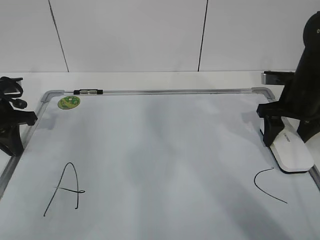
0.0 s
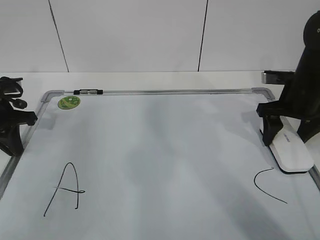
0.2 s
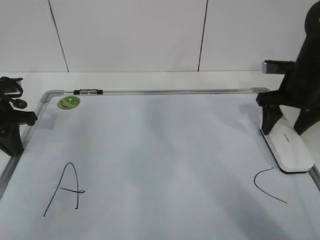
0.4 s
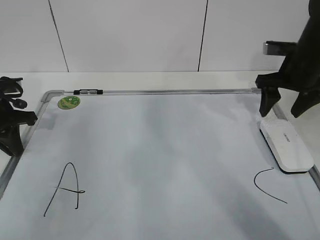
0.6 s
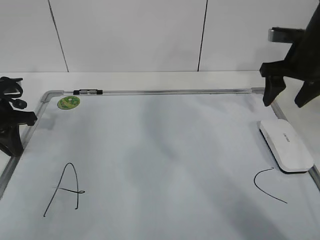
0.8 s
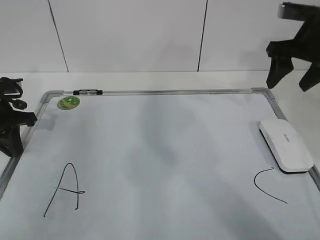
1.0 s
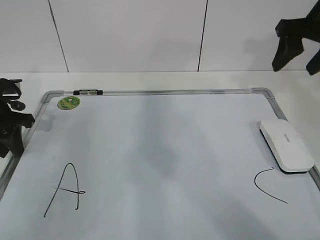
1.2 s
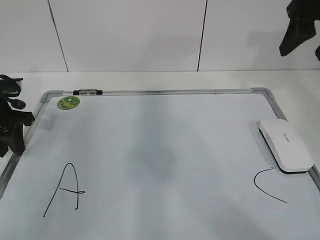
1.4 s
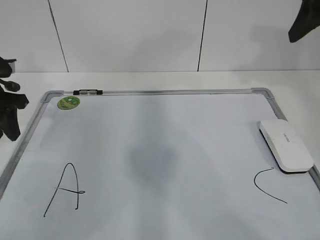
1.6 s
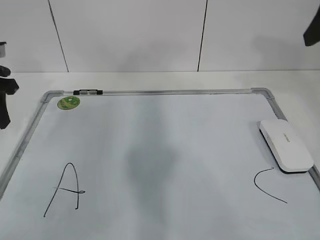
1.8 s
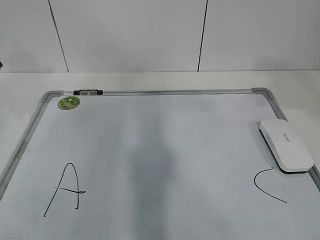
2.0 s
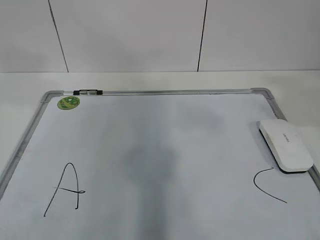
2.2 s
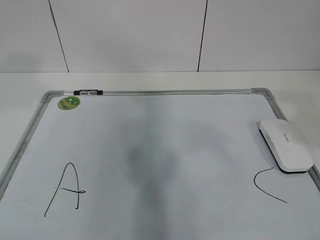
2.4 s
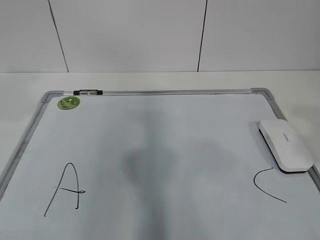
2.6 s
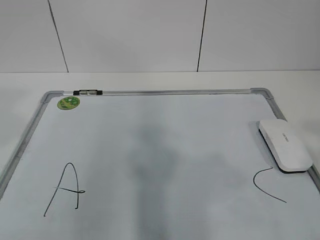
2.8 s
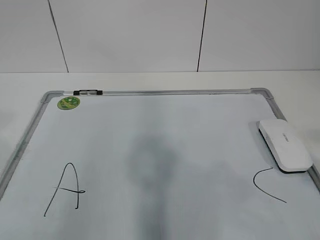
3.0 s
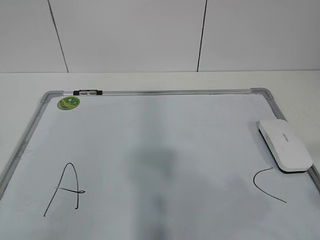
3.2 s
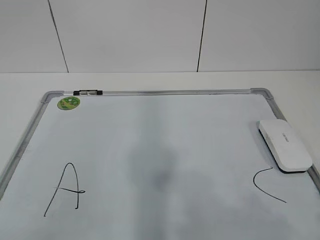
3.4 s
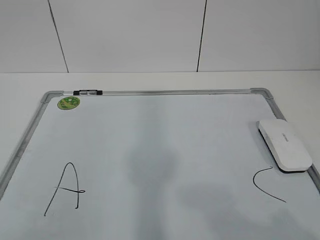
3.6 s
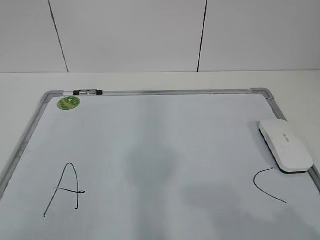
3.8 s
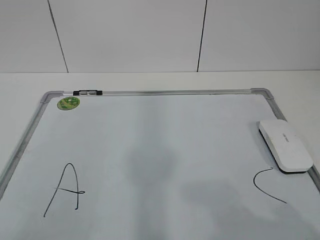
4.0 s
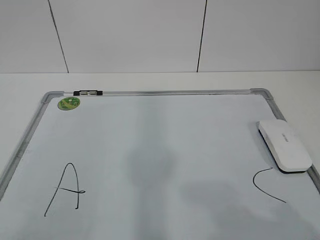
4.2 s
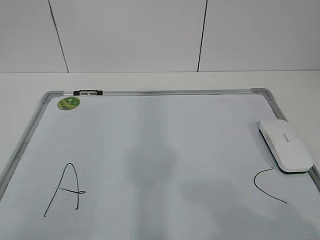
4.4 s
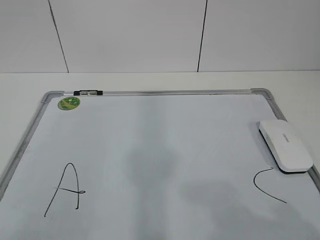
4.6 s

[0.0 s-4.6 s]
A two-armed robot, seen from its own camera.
Task of the whole recording: pick up the eraser on the blackboard and erase the letter "B".
0.0 to 1.6 s: The right gripper moves upward, approximately 20 cm, while the left gripper opens up.
1.6 to 3.0 s: The left gripper travels backward and upward by roughly 35 cm; the right gripper moves backward, roughly 35 cm.
3.0 to 4.6 s: The right gripper heads downward, covering some 10 cm; the left gripper heads backward and downward, covering about 10 cm.

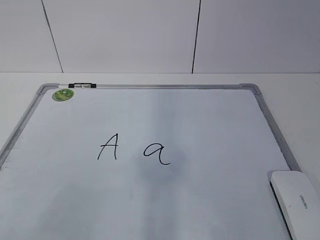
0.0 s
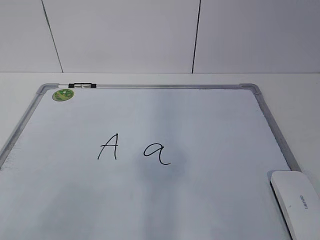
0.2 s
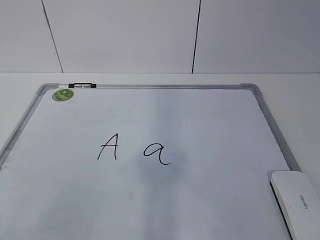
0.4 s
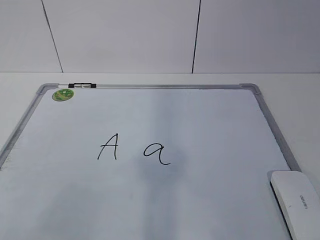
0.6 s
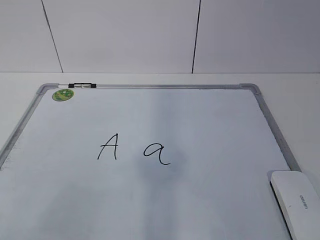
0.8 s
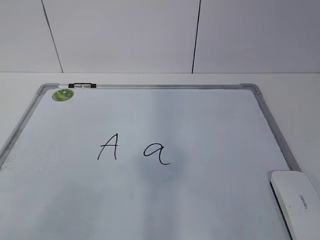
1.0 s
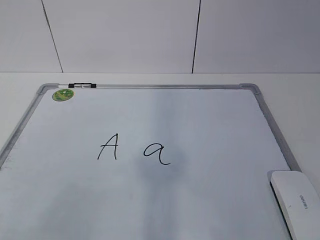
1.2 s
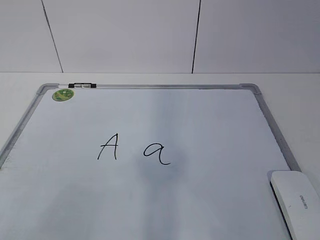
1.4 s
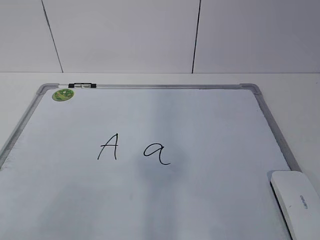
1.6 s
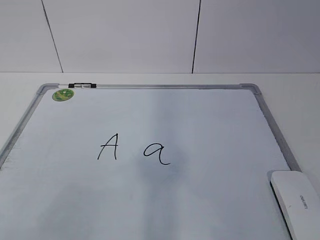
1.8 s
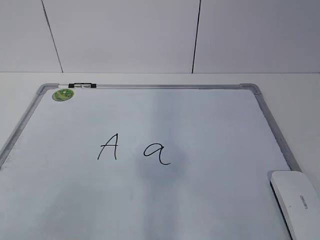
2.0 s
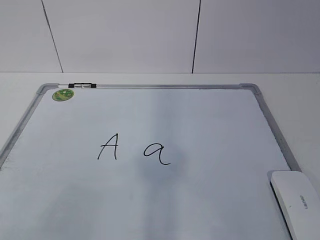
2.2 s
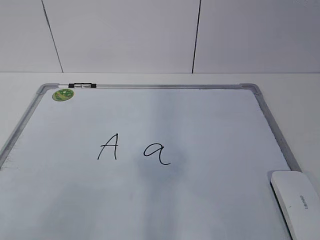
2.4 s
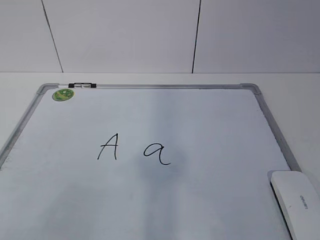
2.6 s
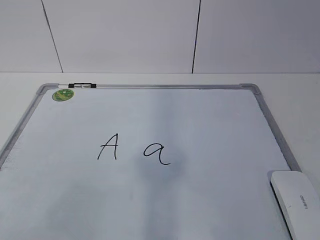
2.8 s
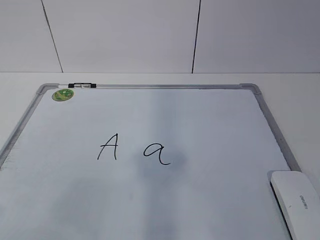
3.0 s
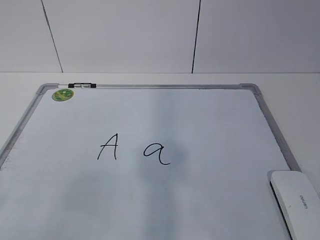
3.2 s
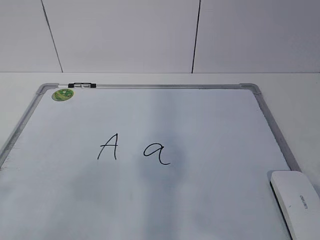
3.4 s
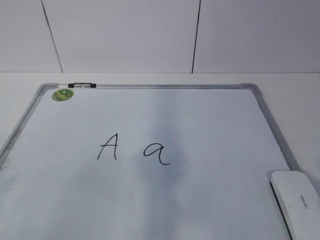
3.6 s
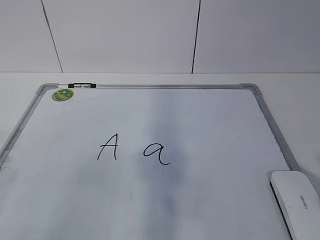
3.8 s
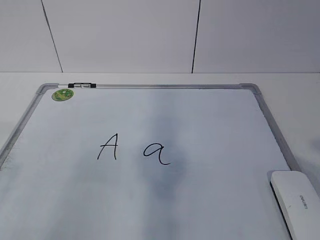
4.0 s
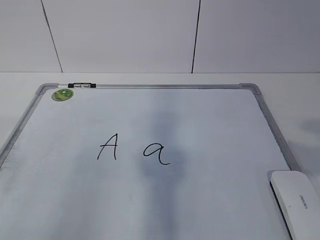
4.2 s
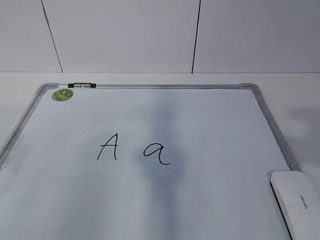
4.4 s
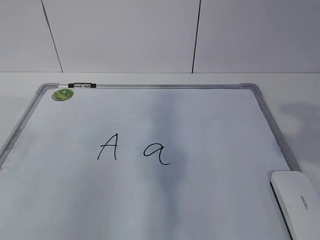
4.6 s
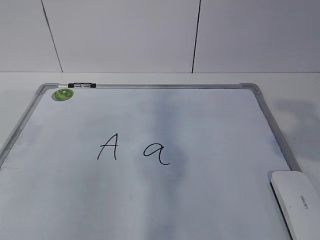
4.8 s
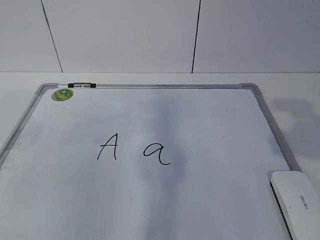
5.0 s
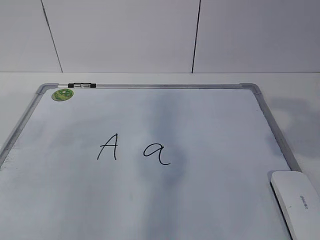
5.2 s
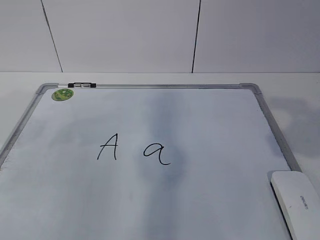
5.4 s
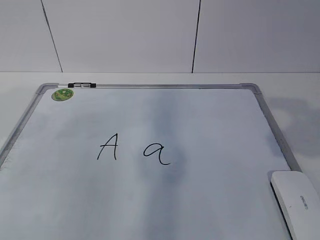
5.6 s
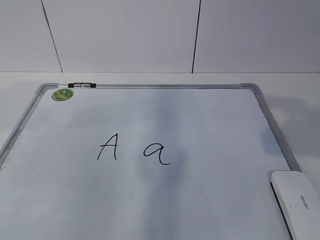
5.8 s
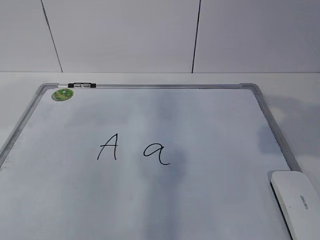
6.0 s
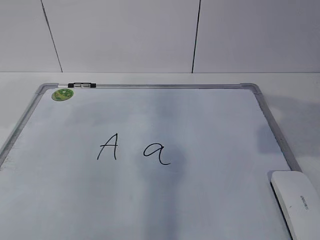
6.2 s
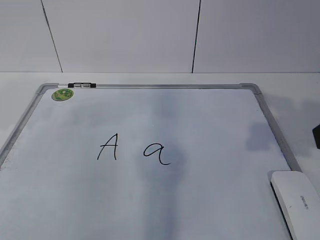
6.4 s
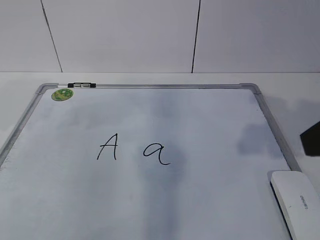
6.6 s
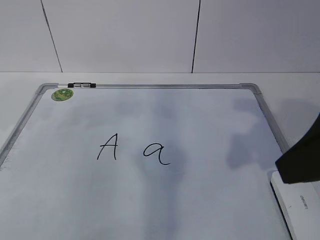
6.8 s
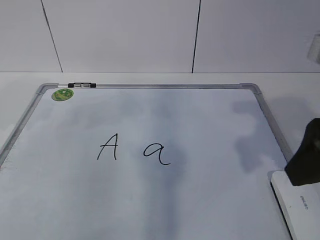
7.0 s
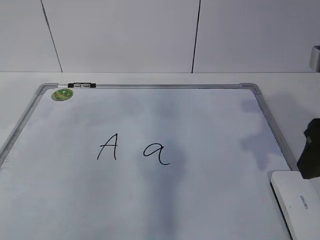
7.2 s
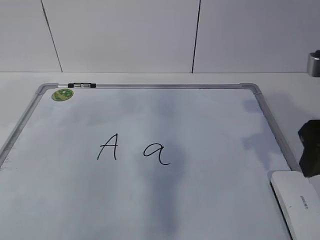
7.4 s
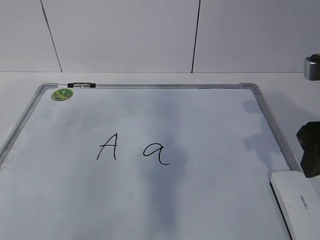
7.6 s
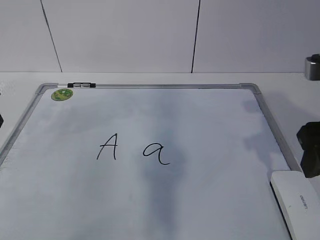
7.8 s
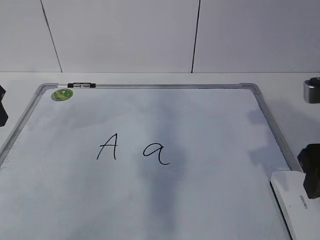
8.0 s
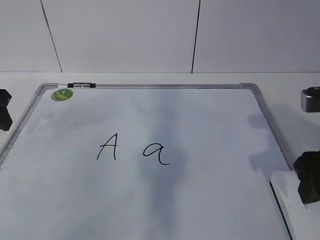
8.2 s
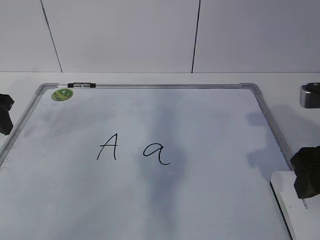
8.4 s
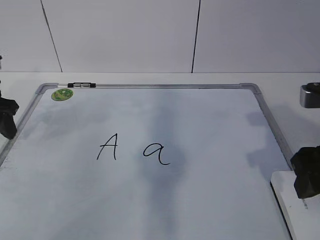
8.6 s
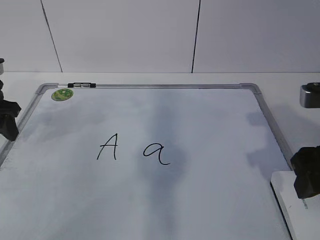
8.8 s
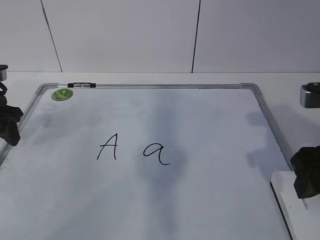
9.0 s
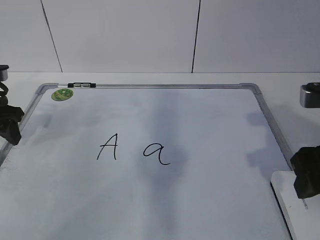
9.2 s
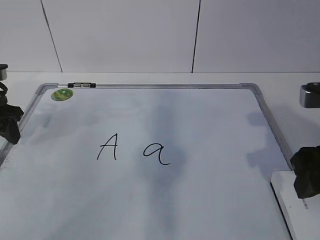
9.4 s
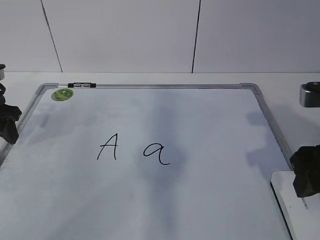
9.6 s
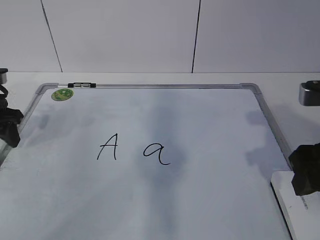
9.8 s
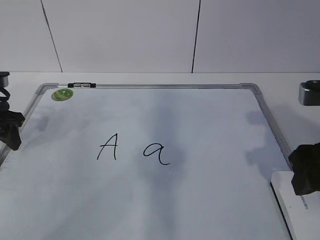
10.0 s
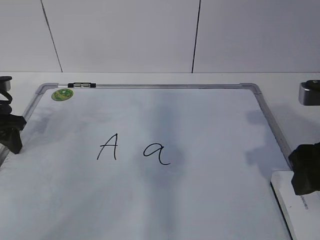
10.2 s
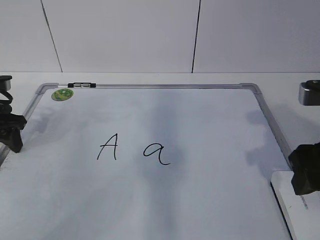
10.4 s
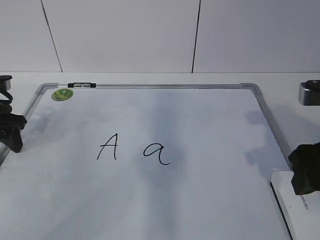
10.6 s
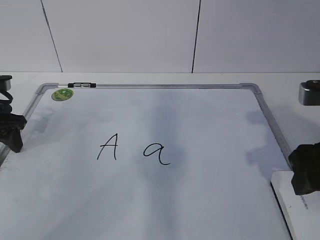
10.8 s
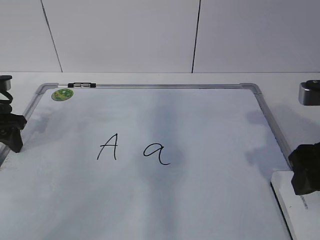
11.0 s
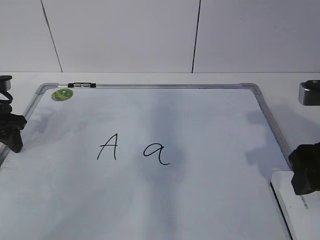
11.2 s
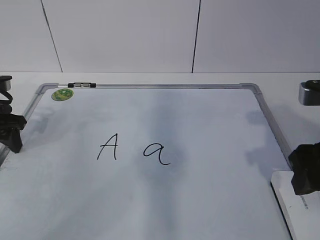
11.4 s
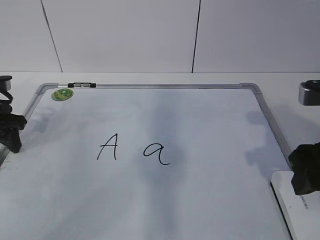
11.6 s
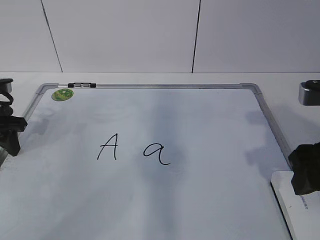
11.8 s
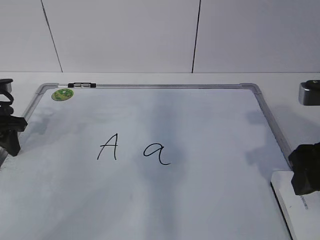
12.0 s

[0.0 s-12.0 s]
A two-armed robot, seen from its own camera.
Task of the whole recording: pick up the eraser on the blackboard and erase the letter "a".
Step, 0.0 to 10.4 s: Hold the drawing board steady with your left hand.
6.0 to 7.6 s: The right gripper goes approximately 10 cm forward and downward.
7.6 to 9.0 s: The left gripper travels downward and forward by some 10 cm.
9.0 to 10.4 s: There are only small adjustments of the grippers.
10.4 to 12.0 s: The two grippers keep their place.

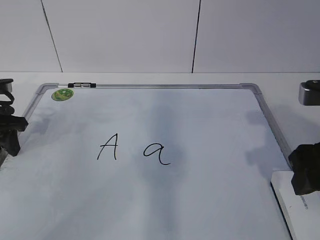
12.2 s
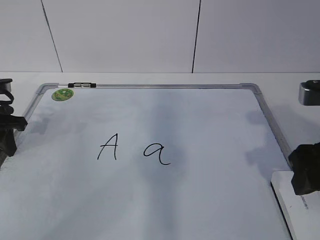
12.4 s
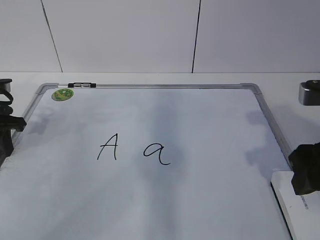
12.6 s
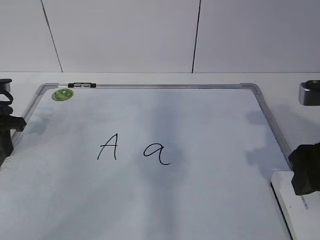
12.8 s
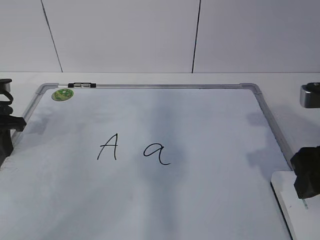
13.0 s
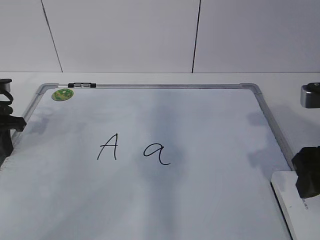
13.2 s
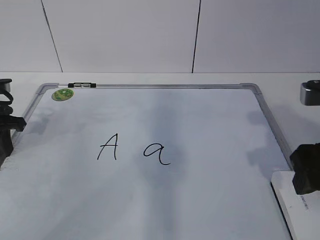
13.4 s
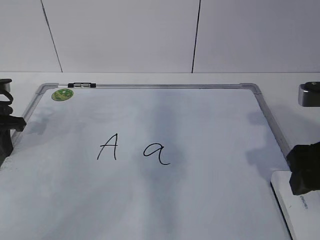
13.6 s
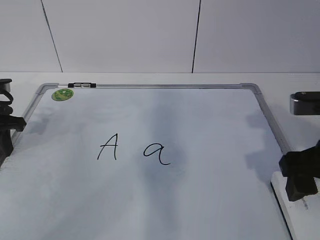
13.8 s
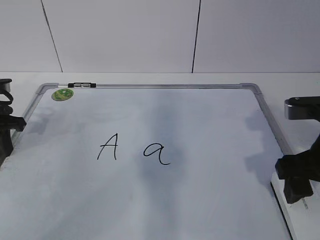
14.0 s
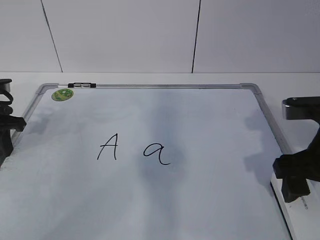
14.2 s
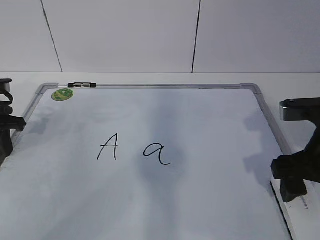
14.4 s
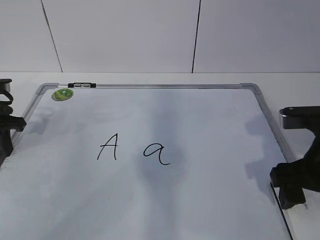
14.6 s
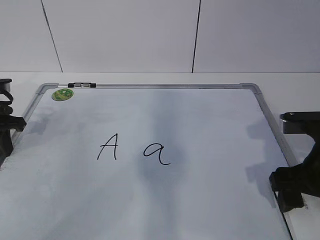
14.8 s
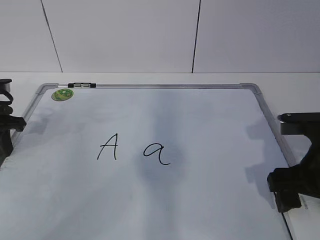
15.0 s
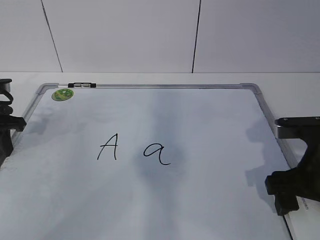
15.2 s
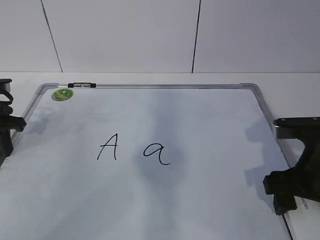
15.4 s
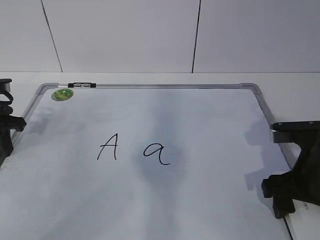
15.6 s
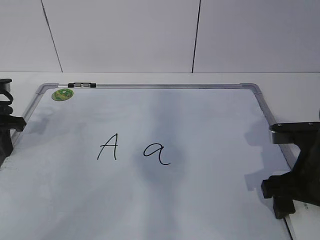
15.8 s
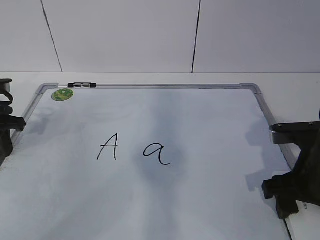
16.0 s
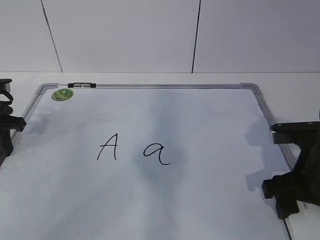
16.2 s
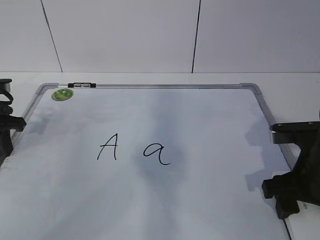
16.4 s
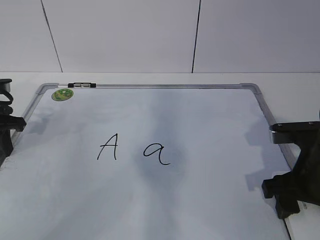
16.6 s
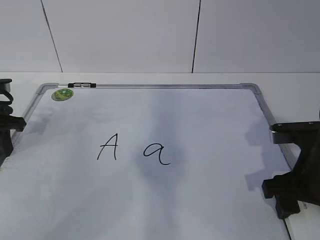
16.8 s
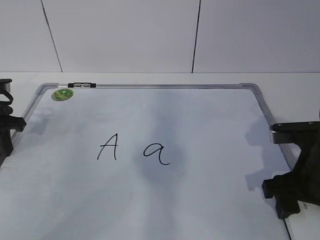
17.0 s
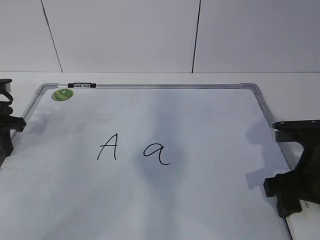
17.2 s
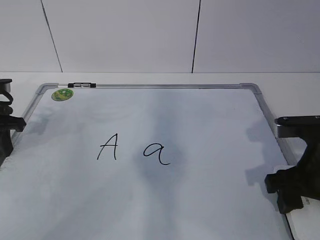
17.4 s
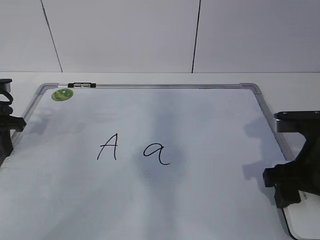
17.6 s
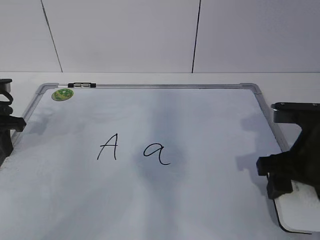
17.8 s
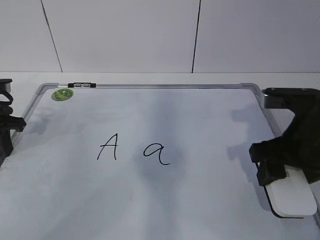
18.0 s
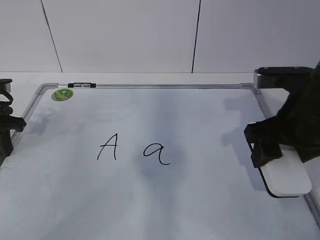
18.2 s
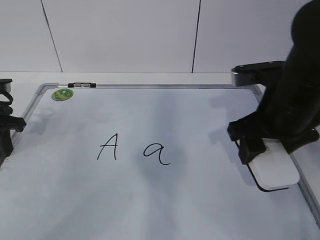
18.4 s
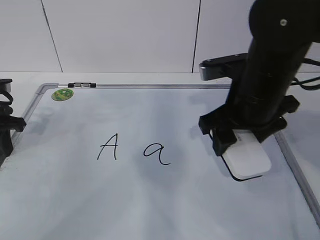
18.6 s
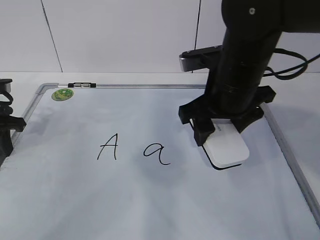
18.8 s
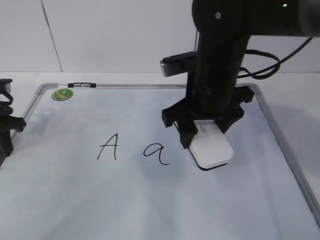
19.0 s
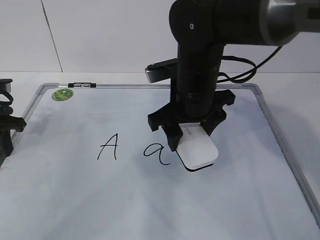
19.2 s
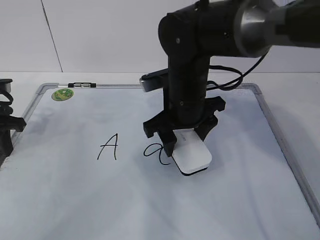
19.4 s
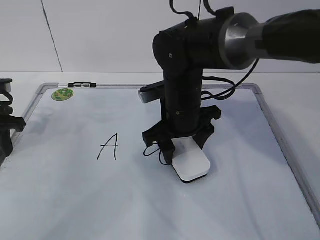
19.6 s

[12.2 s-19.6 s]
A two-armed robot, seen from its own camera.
Task of the whole recording: pick up the eraser on the blackboard and erase the letter "a".
12.2 to 13.6 s: The left gripper closes.
13.6 to 15.2 s: The right gripper travels downward by about 5 cm.
15.2 to 16.6 s: The right gripper closes up.
16.6 to 18.2 s: The right gripper moves upward, approximately 5 cm.
18.2 to 19.6 s: The right gripper heads to the left and forward, covering about 15 cm.
